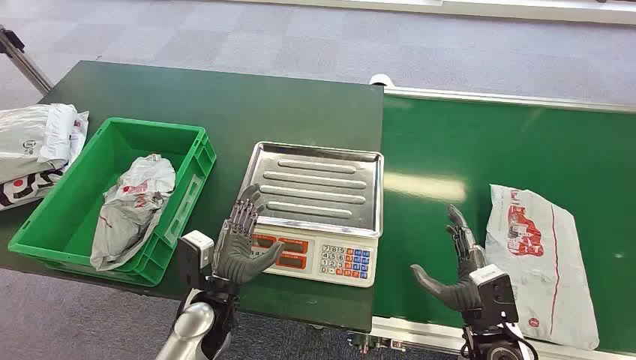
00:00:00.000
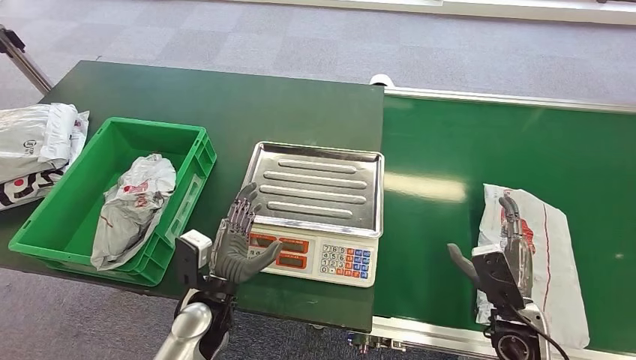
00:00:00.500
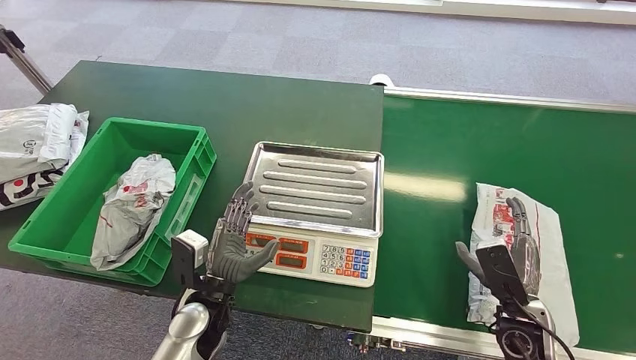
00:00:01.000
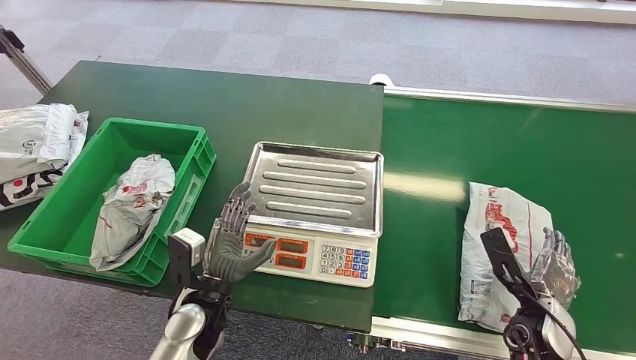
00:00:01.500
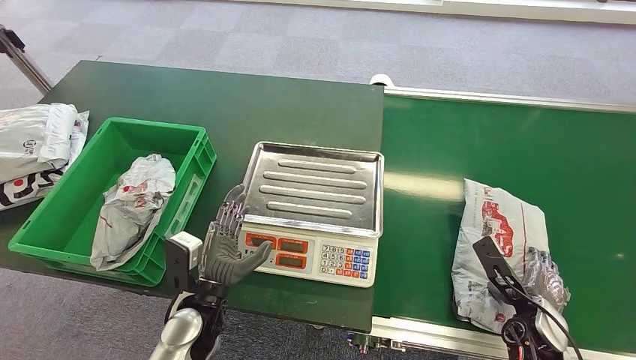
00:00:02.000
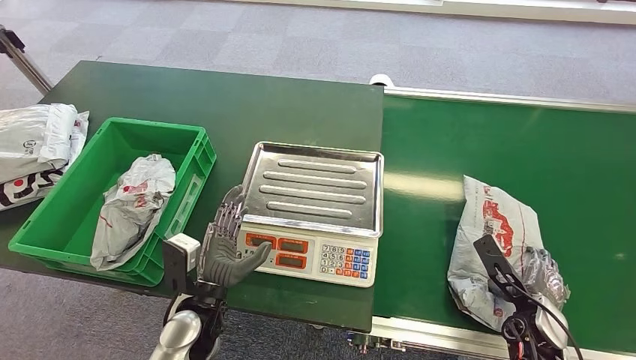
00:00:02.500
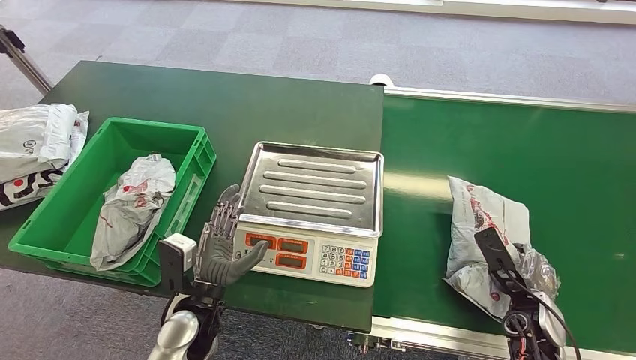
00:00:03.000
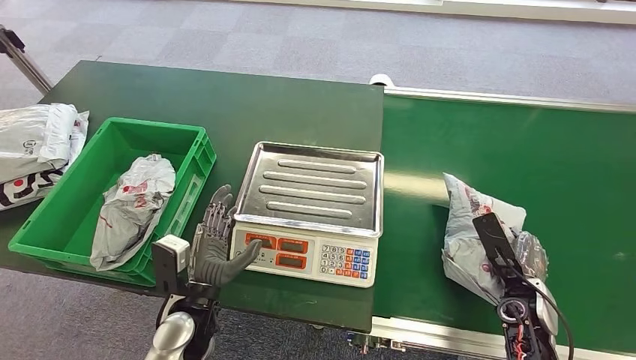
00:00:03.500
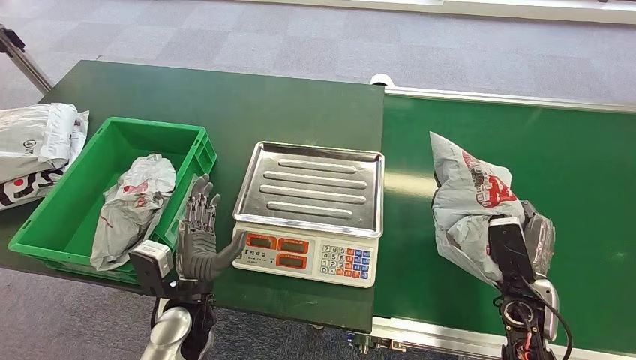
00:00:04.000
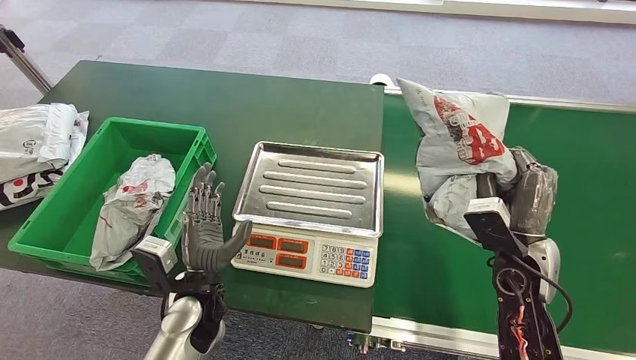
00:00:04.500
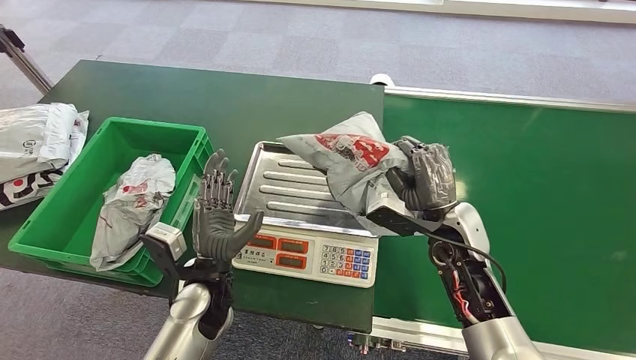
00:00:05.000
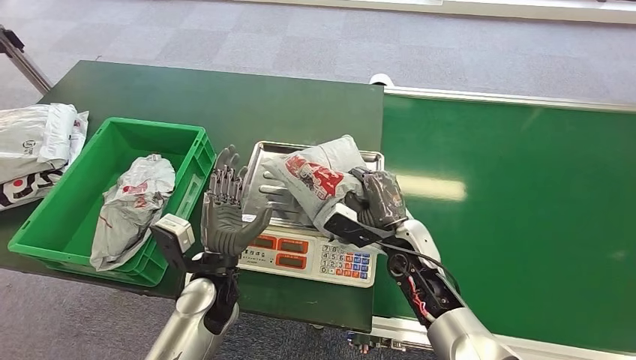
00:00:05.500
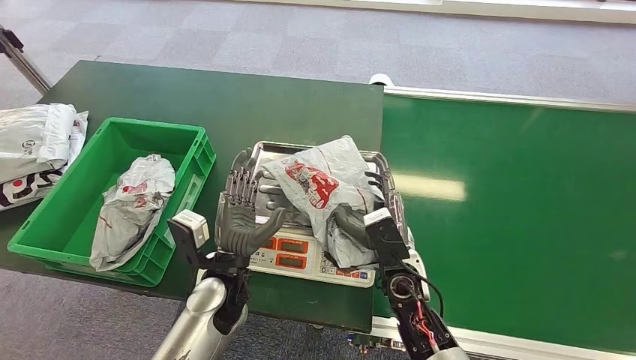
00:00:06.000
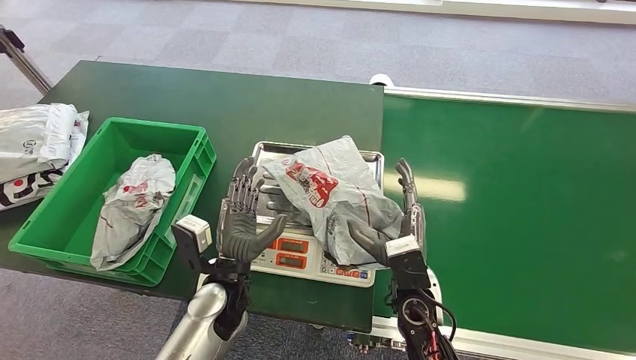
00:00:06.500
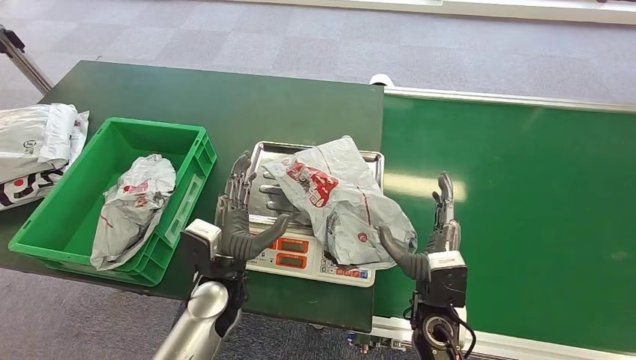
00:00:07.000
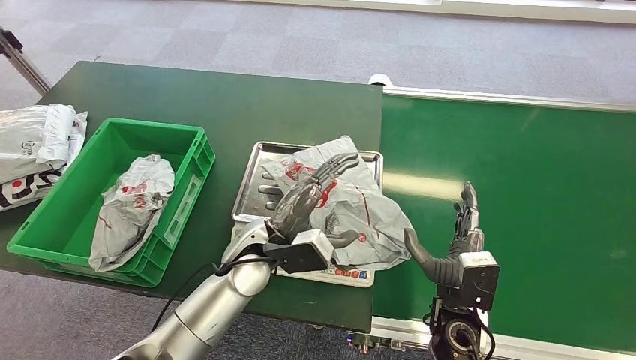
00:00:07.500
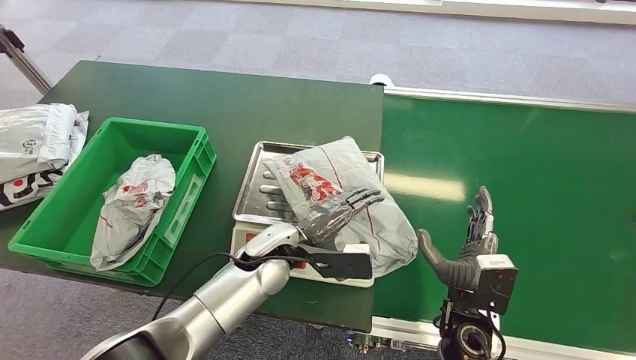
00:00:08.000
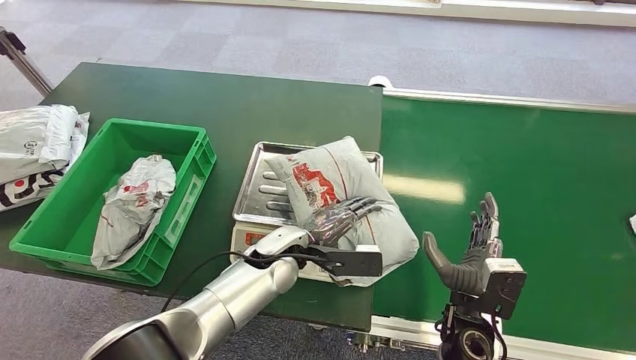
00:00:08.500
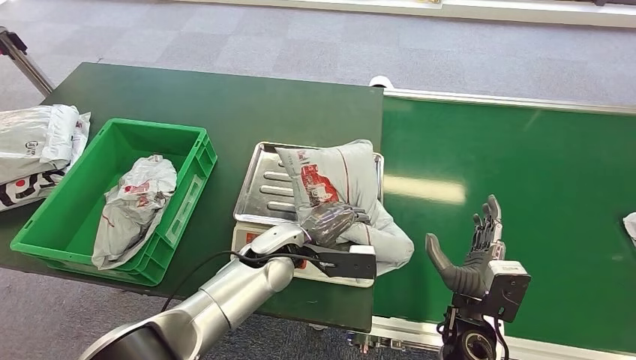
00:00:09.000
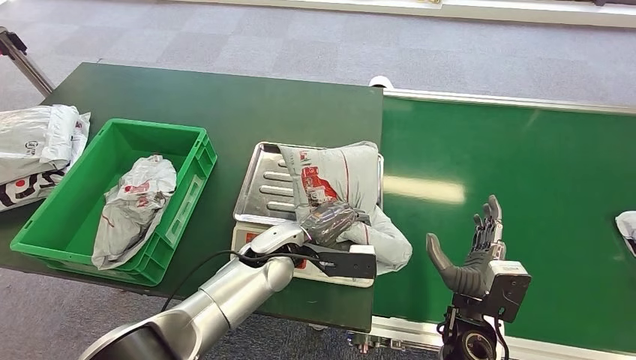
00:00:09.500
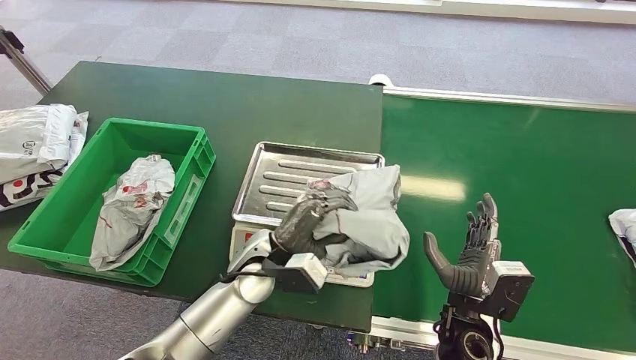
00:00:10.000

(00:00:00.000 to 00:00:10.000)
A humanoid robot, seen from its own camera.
Step, 00:00:00.000 - 00:00:04.500: Pick up the package from the conveyor belt.
Step, 00:00:05.000 - 00:00:06.500: Place the package onto the inbound machine.
00:00:02.000 - 00:00:04.000: The right hand shifts by approximately 5 cm.
00:00:06.000 - 00:00:08.000: The right hand goes roughly 10 cm to the right and backward. Meanwhile the left hand is displaced forward and to the right by about 10 cm.

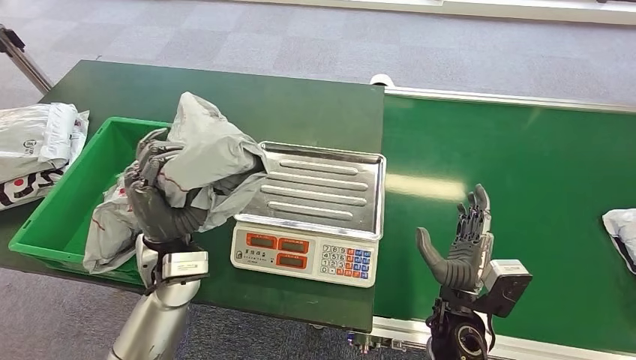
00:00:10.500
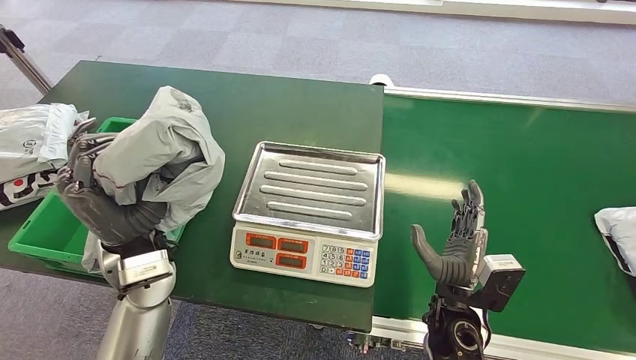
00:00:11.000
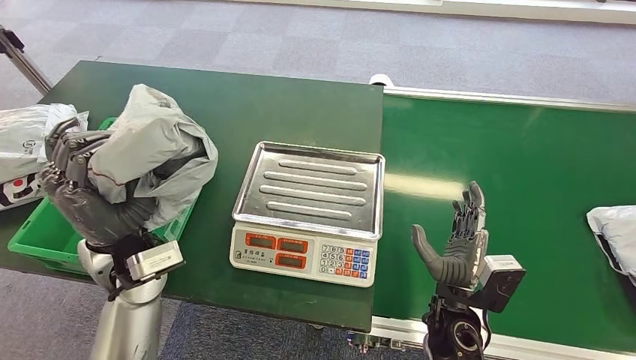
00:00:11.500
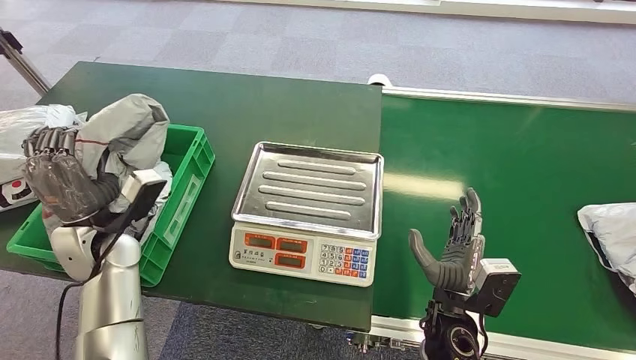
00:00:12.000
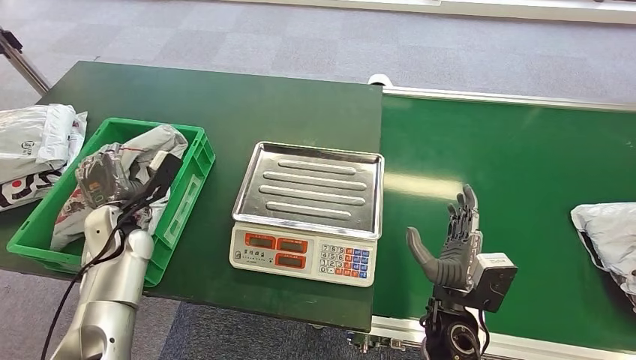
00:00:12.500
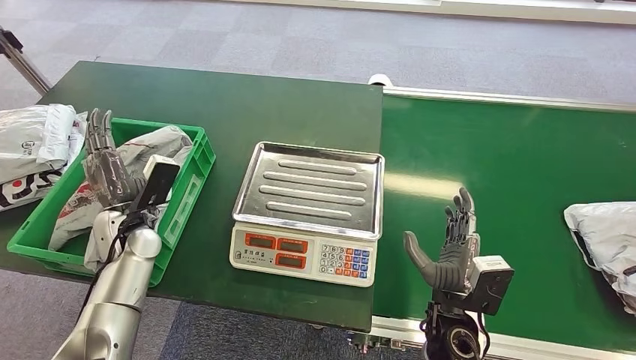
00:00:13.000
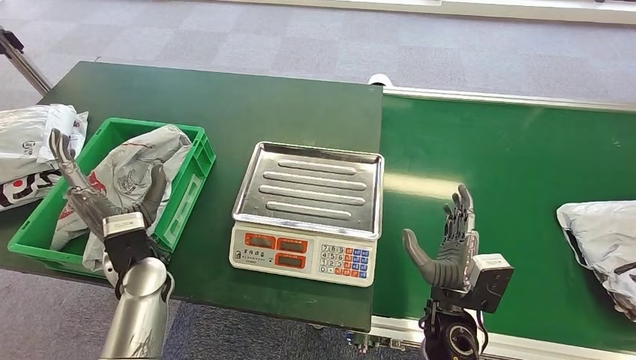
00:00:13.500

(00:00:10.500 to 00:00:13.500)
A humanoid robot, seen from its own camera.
Step, 00:00:11.000 - 00:00:13.500: Place the package into the parcel locker.
00:00:12.000 - 00:00:13.500: The left hand is displaced to the right by about 5 cm.
